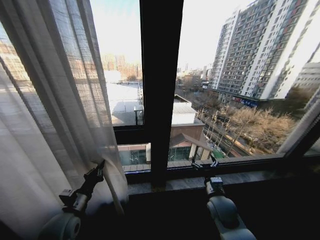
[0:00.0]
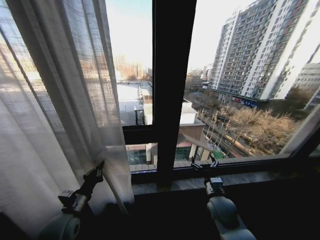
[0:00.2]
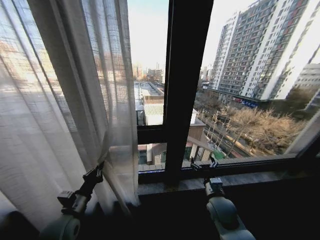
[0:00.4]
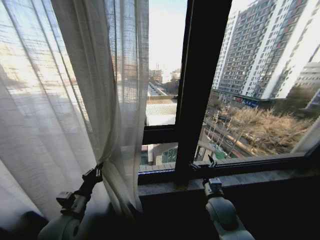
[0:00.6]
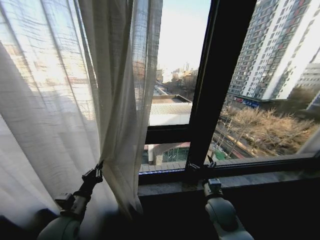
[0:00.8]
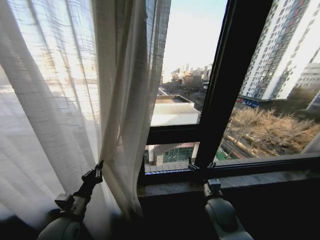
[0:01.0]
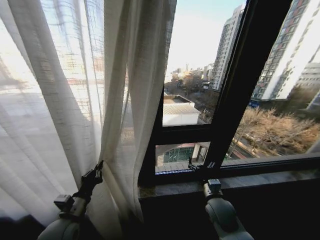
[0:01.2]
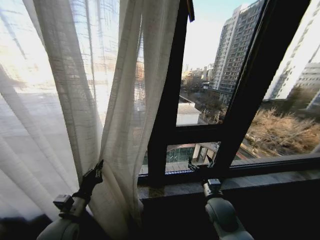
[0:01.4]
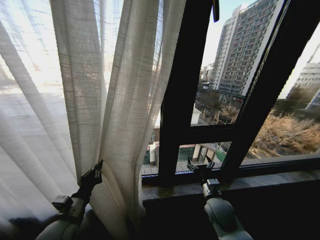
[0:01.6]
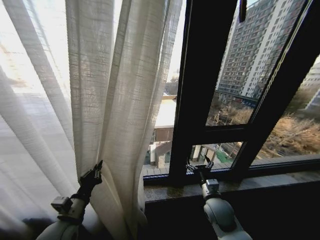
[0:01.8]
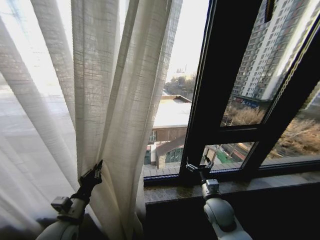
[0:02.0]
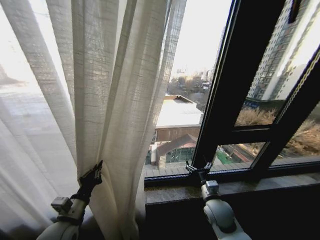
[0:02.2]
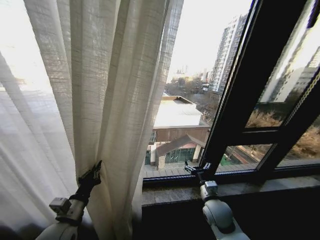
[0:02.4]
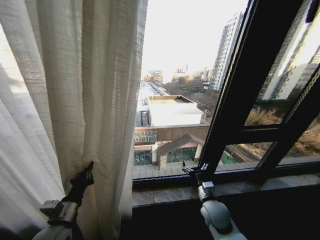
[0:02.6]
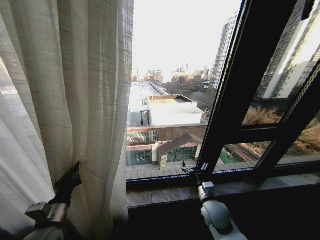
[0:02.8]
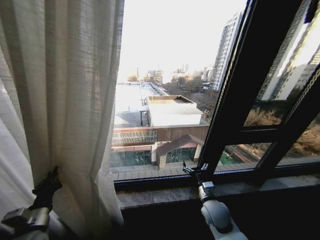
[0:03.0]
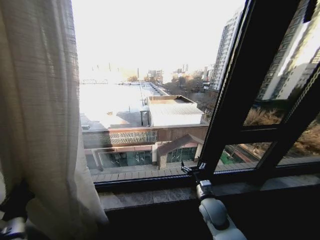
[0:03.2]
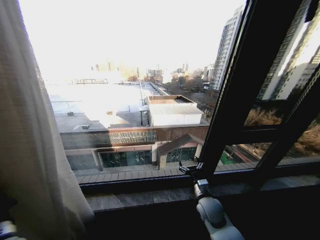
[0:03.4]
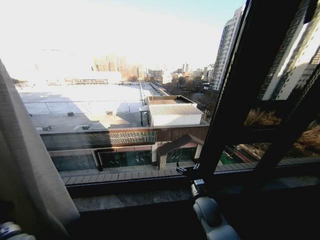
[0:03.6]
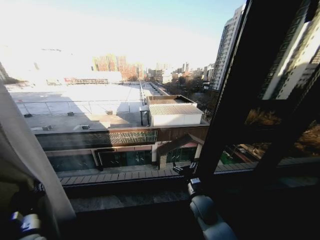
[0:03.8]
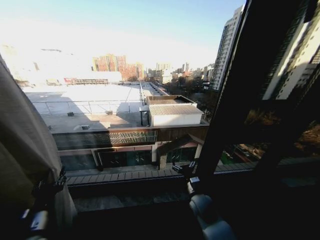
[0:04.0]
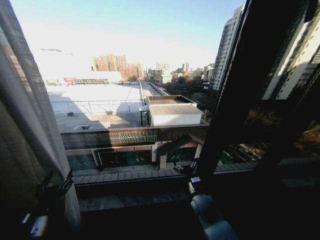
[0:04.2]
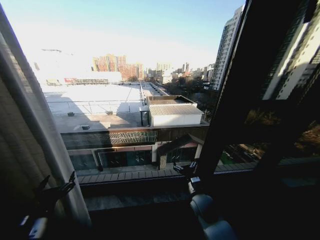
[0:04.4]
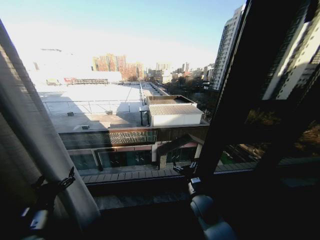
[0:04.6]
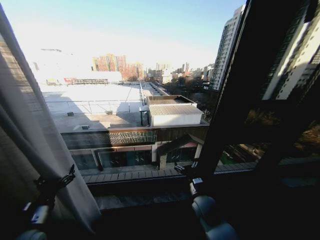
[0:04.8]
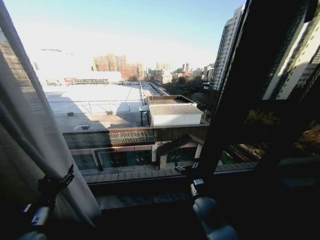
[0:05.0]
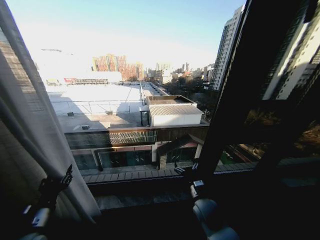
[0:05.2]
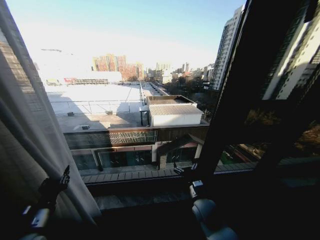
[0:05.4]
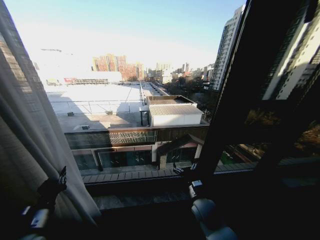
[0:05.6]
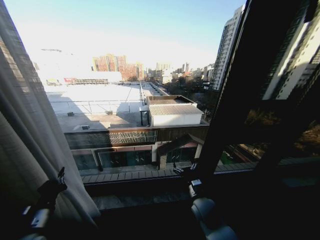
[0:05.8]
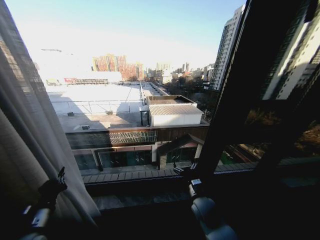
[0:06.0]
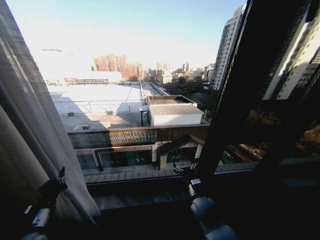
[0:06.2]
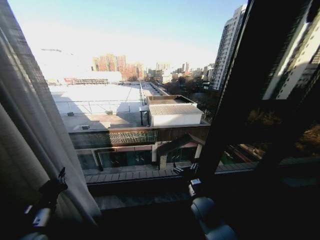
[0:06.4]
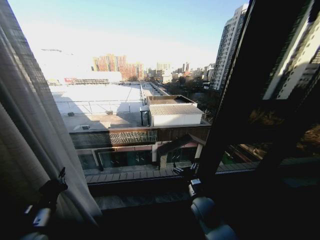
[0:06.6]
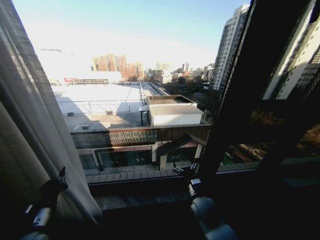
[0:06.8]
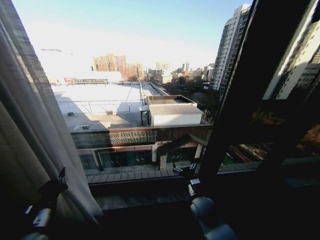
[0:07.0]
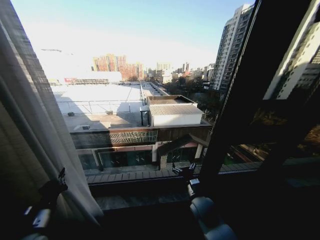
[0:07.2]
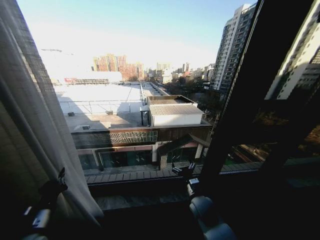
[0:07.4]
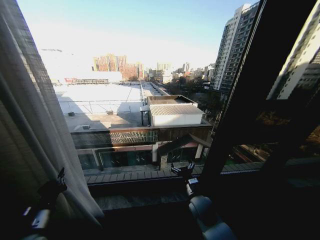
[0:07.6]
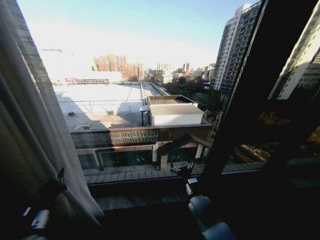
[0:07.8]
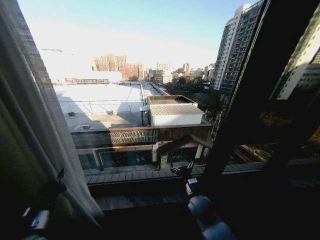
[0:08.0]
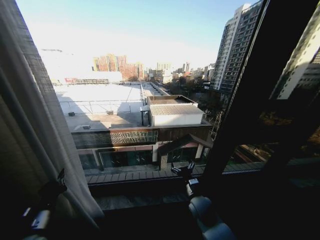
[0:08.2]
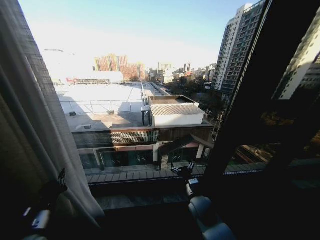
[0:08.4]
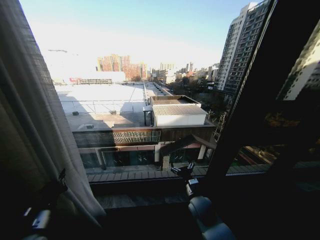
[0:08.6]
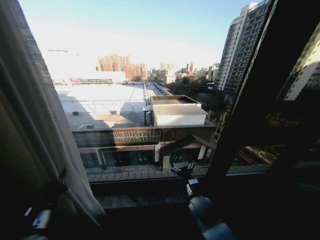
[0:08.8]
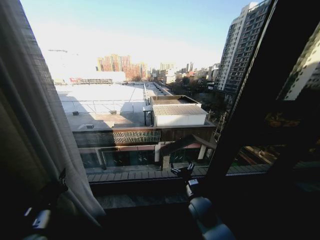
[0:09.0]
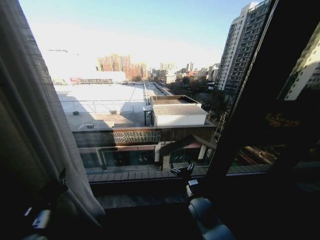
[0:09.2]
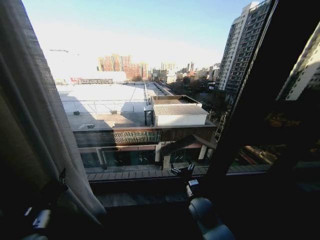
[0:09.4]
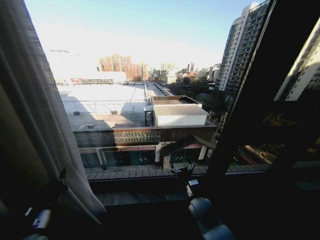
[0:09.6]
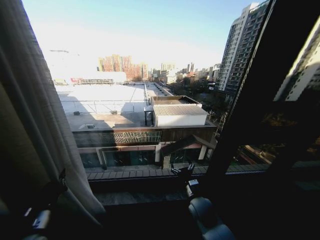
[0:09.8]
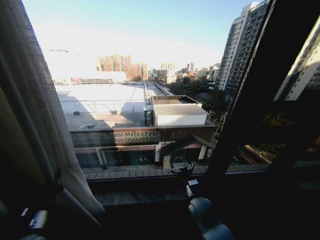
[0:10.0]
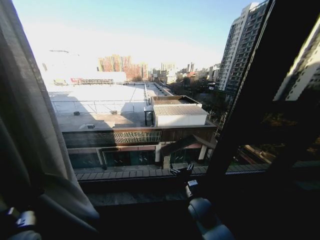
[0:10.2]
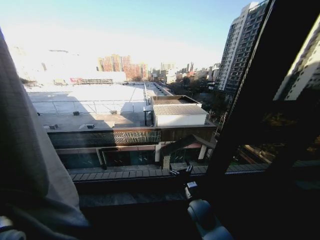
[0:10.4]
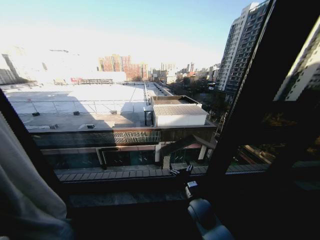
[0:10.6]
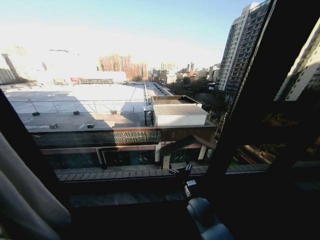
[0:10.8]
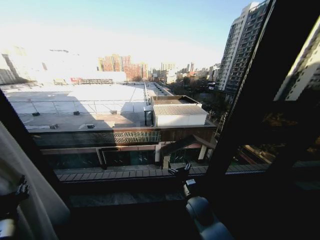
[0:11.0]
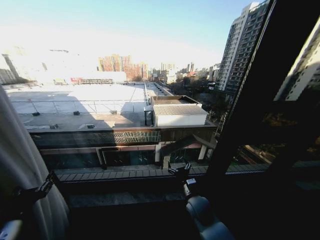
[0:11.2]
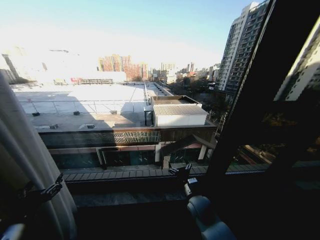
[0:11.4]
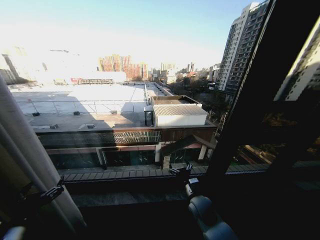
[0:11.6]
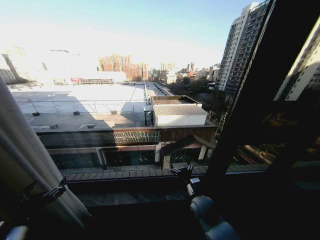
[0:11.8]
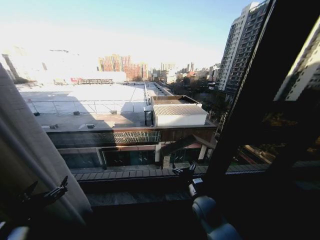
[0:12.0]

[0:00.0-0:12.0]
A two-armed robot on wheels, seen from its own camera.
Task of the whole recording: Open the curtains by pulling them apart, changing their state from closed to fully open.
0:01.6 to 0:03.0: The left gripper shifts about 10 cm to the left.
0:03.0 to 0:04.4: The left gripper goes to the left and returns, some 5 cm each way, and opens its fingers.
0:04.4 to 0:06.0: The left gripper closes its fingers.
0:06.0 to 0:07.6: Neither gripper changes place.
0:07.6 to 0:09.0: Neither gripper changes place.
0:09.0 to 0:10.4: The left gripper shifts approximately 5 cm to the left.
0:10.4 to 0:12.0: The left gripper travels to the right, backward and upward by about 10 cm, and opens its fingers.

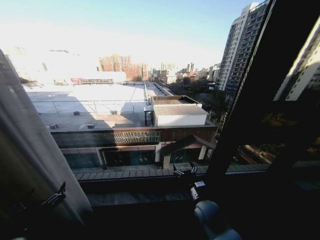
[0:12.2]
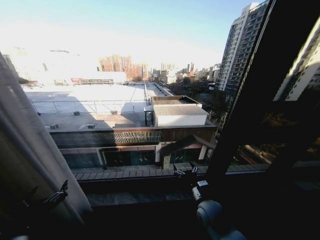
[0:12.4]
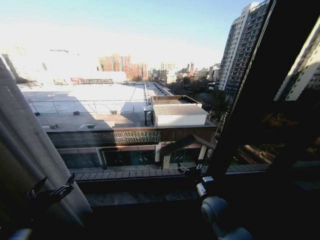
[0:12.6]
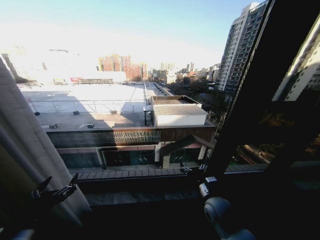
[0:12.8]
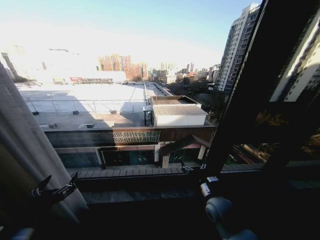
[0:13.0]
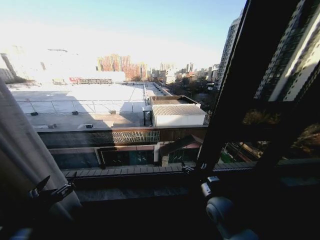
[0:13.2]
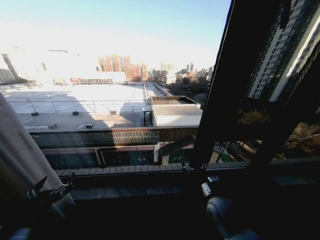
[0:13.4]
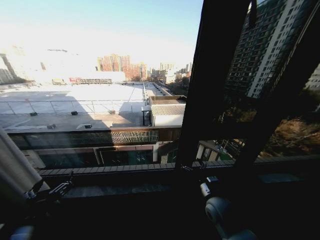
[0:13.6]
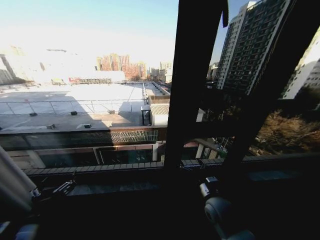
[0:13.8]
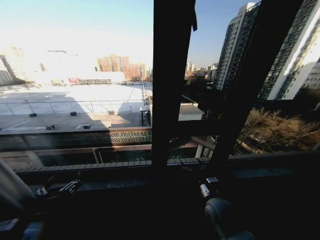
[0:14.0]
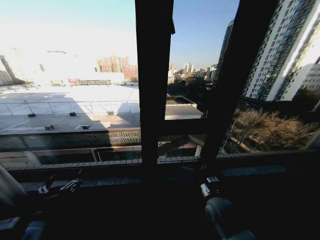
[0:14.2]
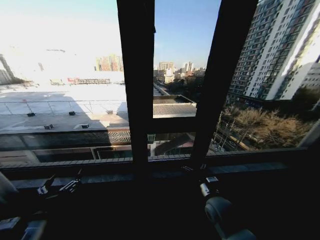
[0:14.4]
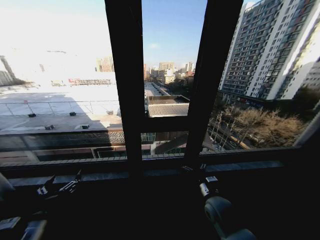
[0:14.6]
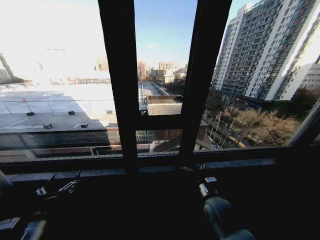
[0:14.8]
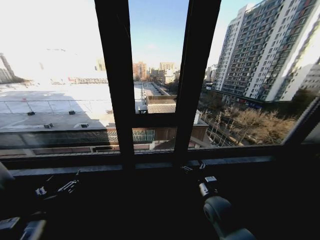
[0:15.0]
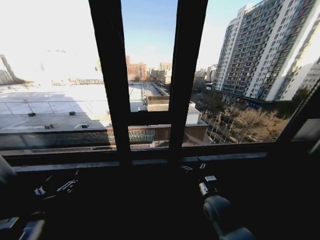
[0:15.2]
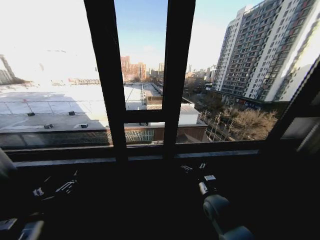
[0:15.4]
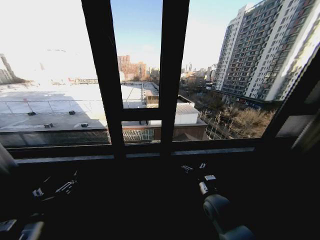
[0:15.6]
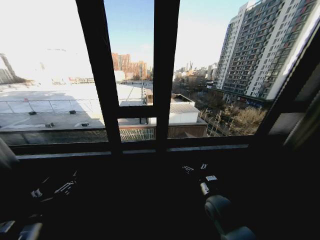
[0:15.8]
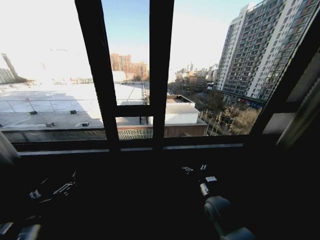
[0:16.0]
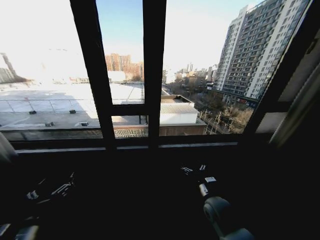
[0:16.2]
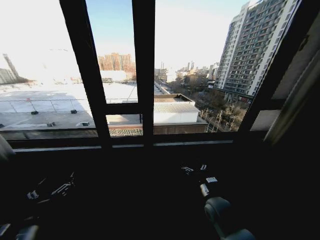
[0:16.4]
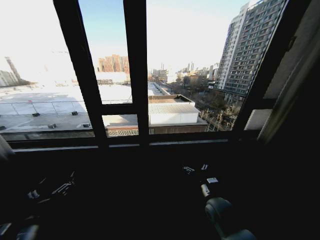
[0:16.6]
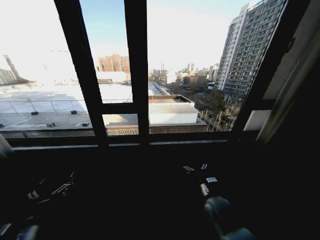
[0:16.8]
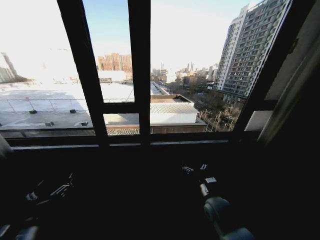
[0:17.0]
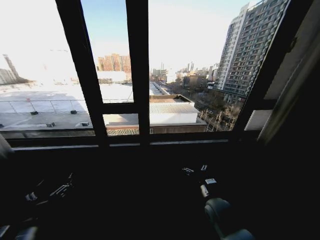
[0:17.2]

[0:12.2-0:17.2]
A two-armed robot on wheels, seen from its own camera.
Task of the whole recording: Open the curtains by pulling them apart, changing their state from closed to fully open.
0:12.2 to 0:13.8: The right gripper moves approximately 5 cm.
